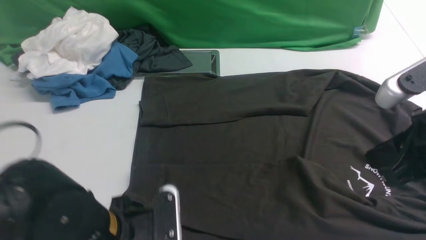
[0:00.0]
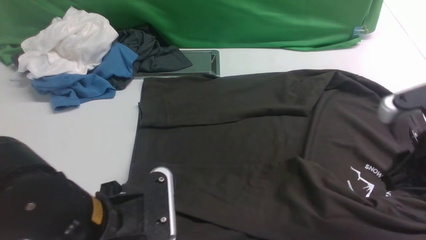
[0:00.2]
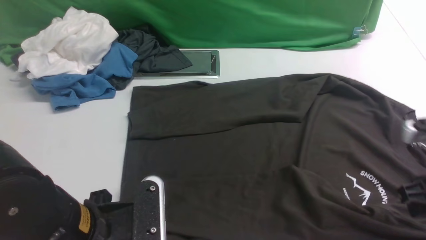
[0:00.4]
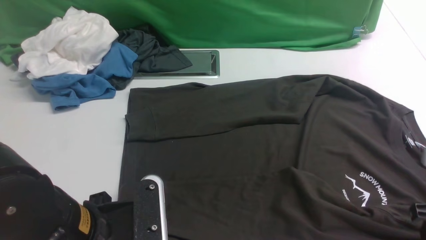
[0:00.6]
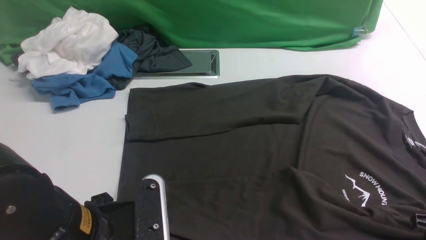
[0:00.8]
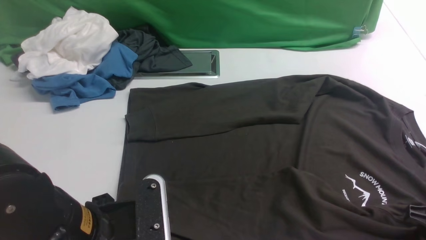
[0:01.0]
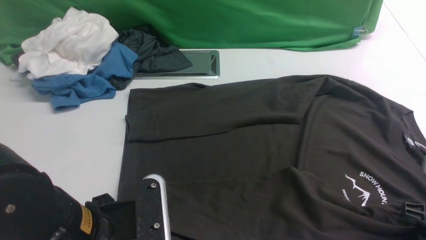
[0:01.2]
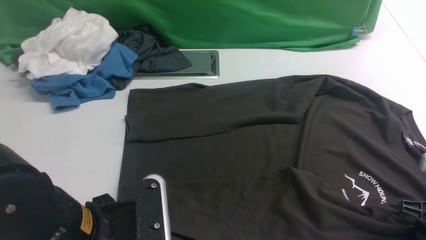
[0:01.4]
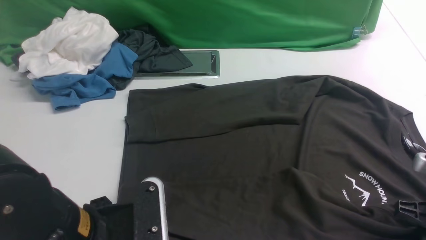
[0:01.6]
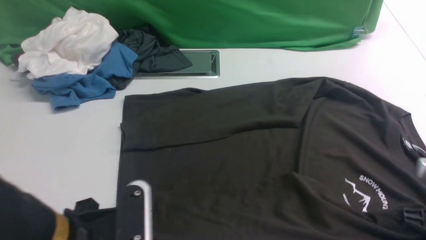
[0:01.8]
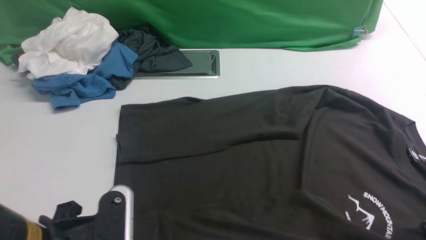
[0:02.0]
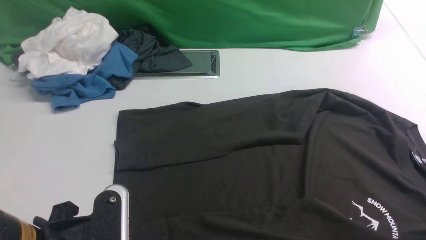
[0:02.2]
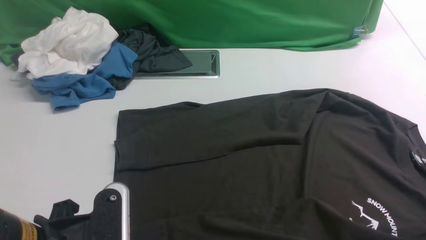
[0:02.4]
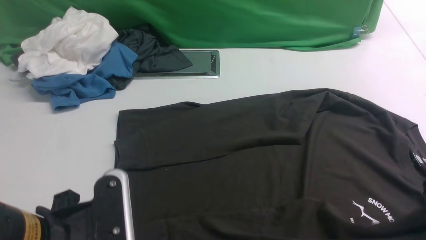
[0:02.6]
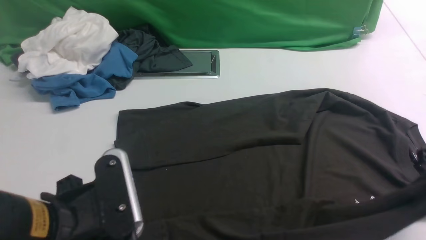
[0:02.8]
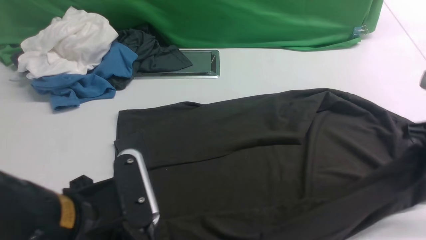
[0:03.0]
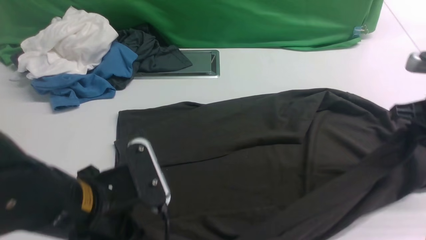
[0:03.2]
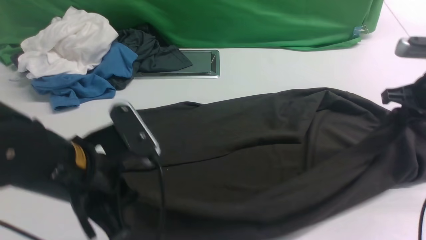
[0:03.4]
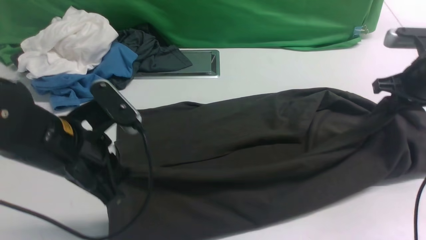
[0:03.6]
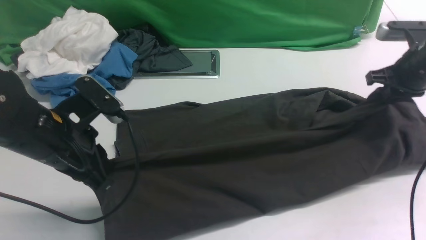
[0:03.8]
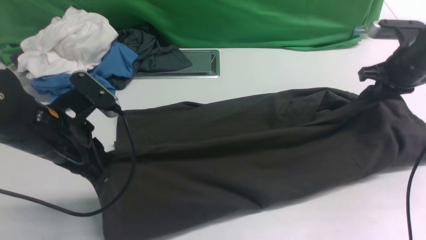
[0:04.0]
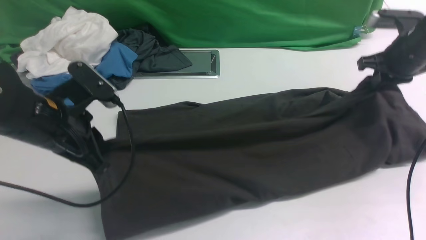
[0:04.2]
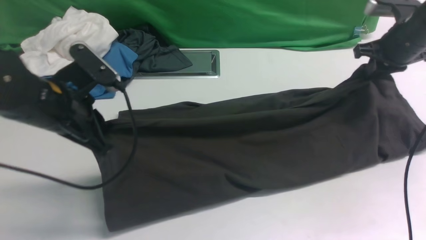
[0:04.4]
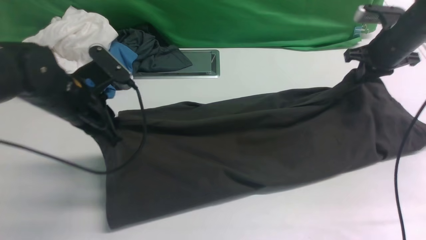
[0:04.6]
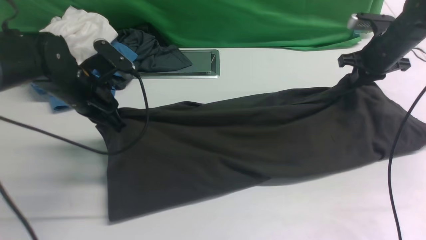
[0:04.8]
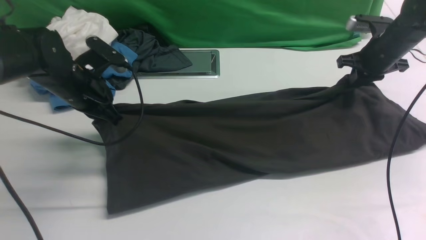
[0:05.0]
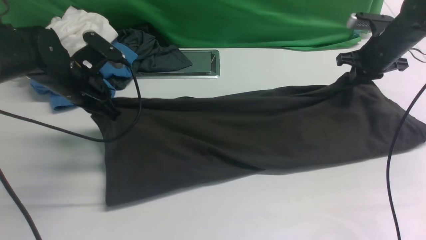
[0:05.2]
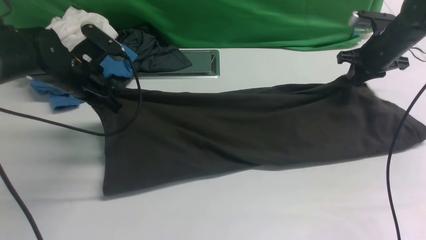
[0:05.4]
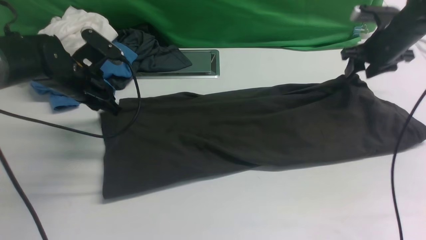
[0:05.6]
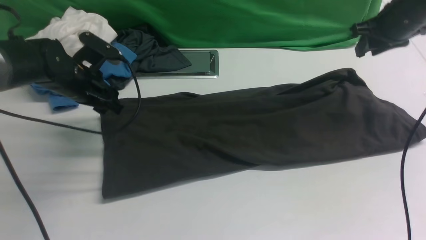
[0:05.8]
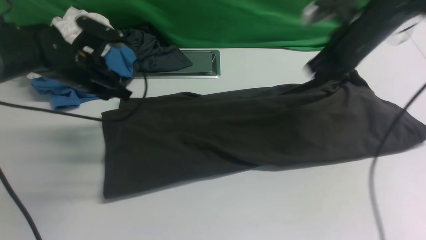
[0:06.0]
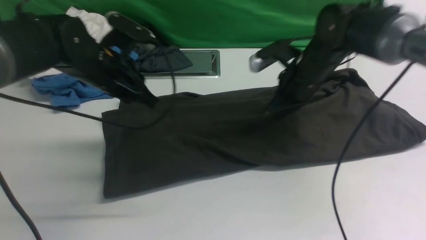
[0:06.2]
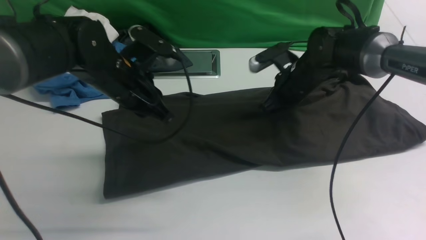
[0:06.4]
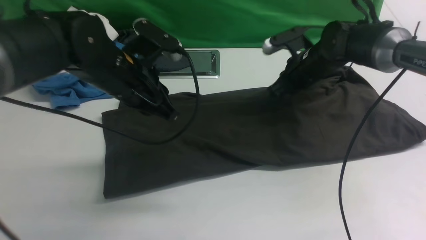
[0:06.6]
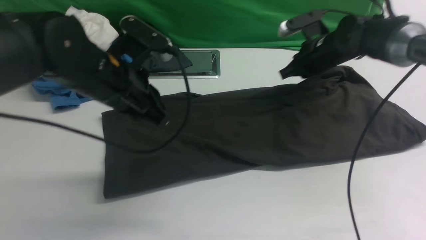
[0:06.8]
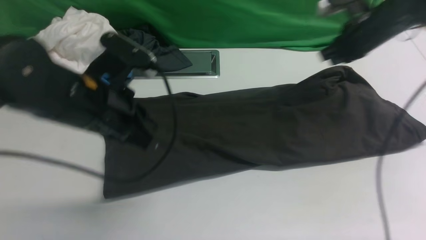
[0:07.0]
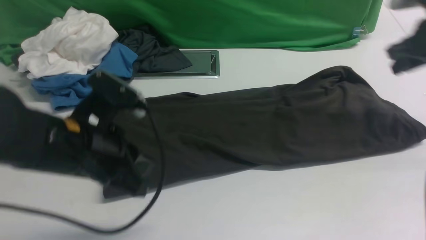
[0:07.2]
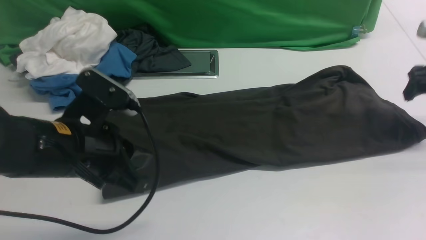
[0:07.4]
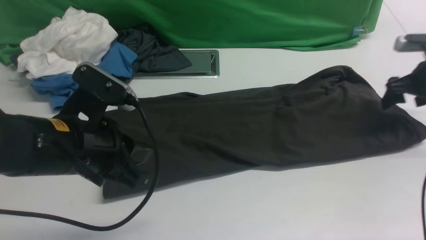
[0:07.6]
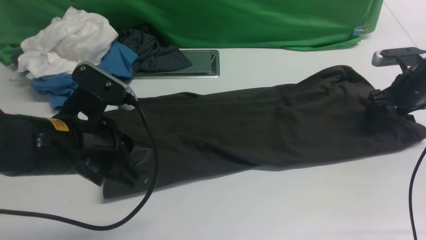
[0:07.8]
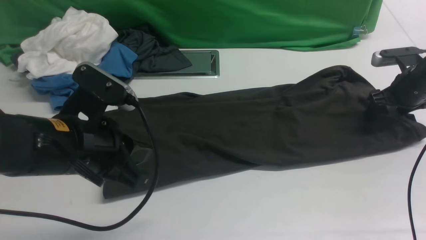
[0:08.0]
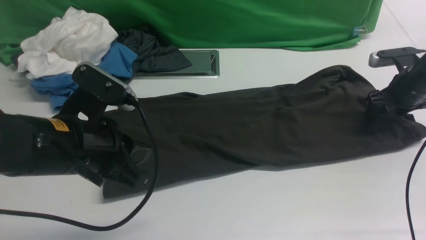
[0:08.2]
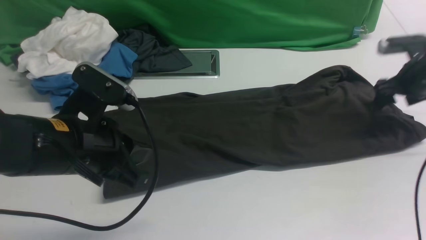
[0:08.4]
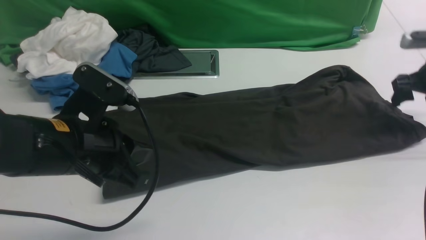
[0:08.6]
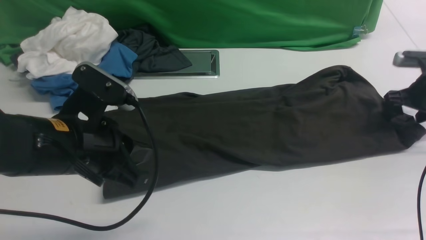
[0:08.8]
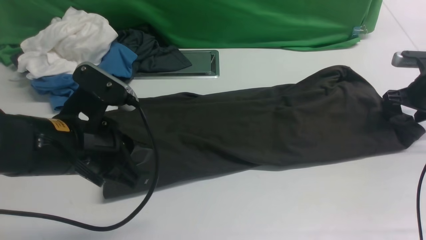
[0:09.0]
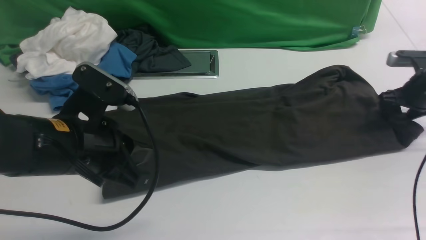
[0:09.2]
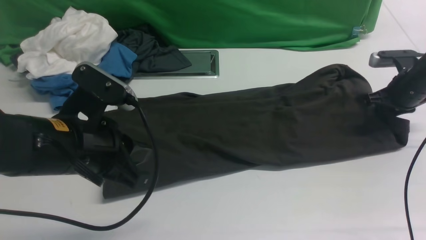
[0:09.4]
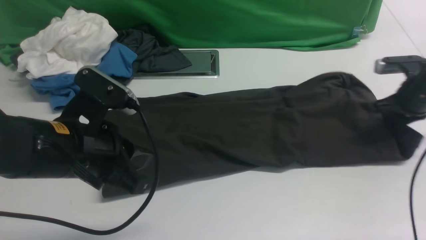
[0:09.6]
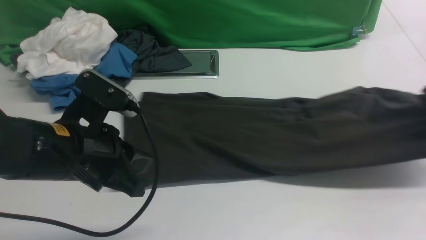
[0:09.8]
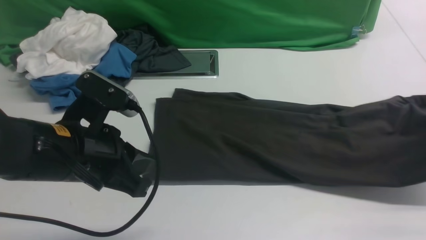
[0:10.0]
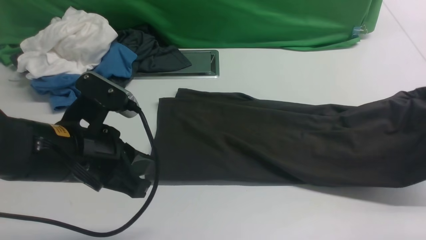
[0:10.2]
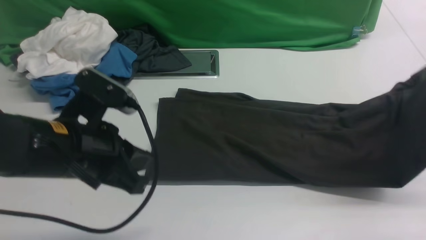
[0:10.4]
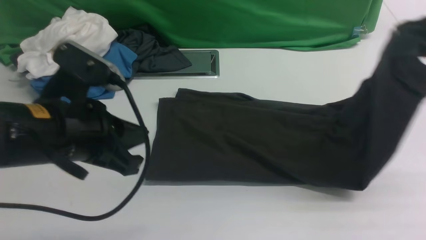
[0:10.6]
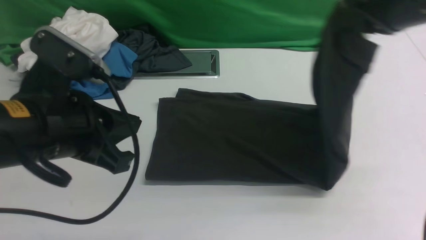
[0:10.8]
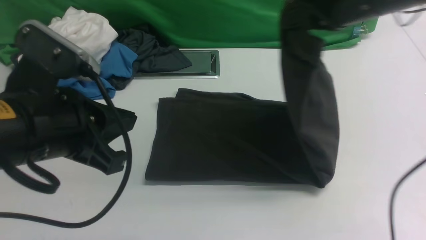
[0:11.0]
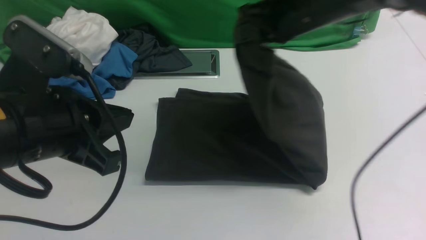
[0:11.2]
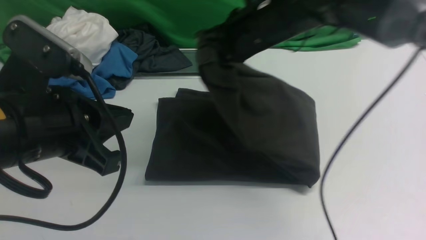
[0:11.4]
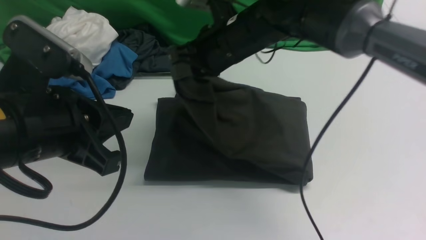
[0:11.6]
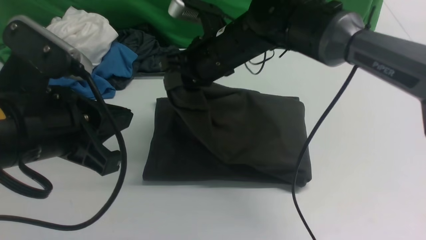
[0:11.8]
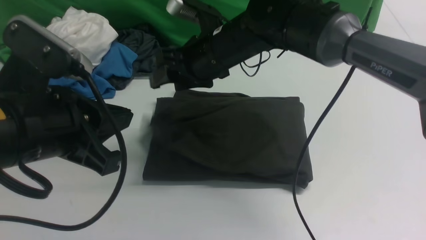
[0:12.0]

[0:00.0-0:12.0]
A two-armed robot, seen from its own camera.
Step, 0:00.0 to 0:02.4: use both arms simultaneously to clamp the lower edge of the clothing fabric.
Step, 0:02.6 to 0:07.2: use both arms to drag the lower edge of the fabric forward and fold it over the upper edge.
Step, 0:07.4 to 0:09.6: use the right arm to clamp the right edge of the fabric.
0:00.0 to 0:01.6: The left gripper is displaced upward by roughly 5 cm. Meanwhile the right gripper moves downward and to the right, approximately 15 cm, and opens, then closes again.
0:01.6 to 0:03.0: The right gripper heads upward and forward, covering approximately 10 cm.
0:03.0 to 0:04.4: The left gripper shifts roughly 15 cm forward and to the left. Meanwhile the right gripper is displaced forward by some 20 cm.
0:04.4 to 0:06.0: The left gripper shifts some 10 cm forward, and opens up. Meanwhile the right gripper is displaced to the left by about 10 cm, and opens and closes again.
0:06.0 to 0:07.6: The left gripper travels backward by some 20 cm, and closes. Meanwhile the right gripper is displaced to the right by approximately 20 cm, and opens.
0:07.6 to 0:09.0: The grippers make only small movements.
0:09.0 to 0:10.4: The right gripper goes roughly 20 cm upward and backward, and closes its fingers.
0:10.4 to 0:12.0: The right gripper goes about 35 cm to the left, and opens up, while the left gripper moves roughly 5 cm.

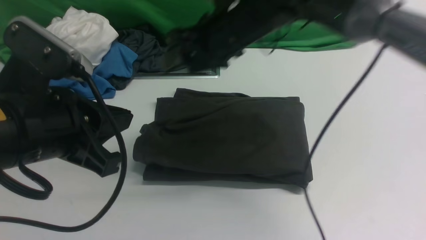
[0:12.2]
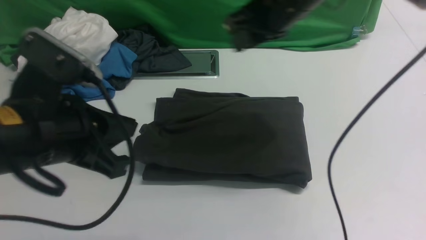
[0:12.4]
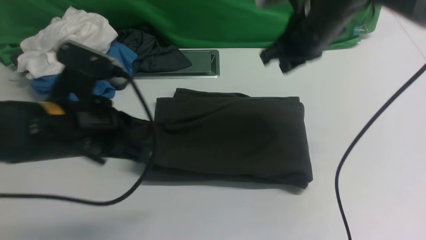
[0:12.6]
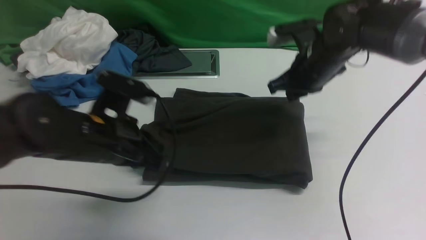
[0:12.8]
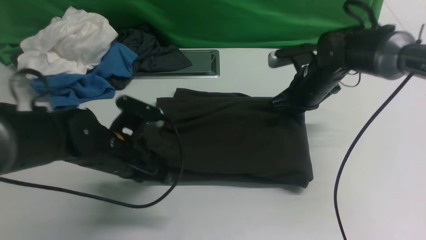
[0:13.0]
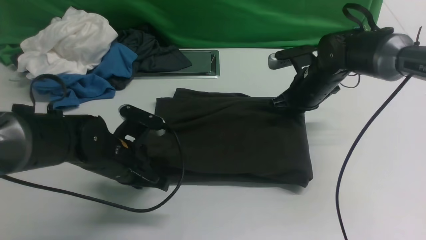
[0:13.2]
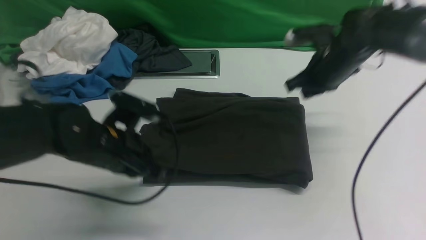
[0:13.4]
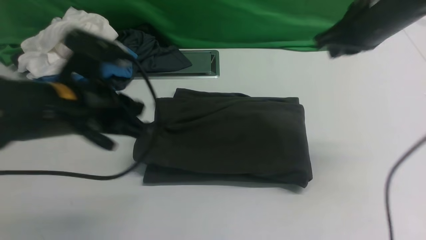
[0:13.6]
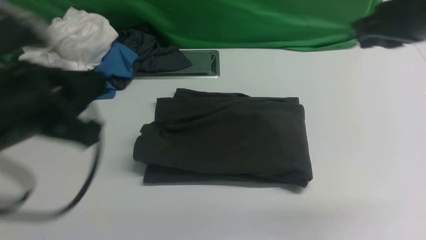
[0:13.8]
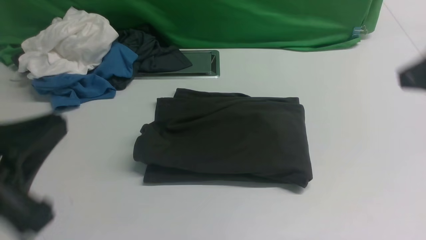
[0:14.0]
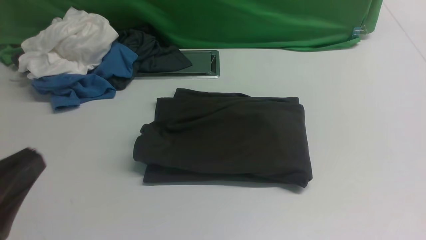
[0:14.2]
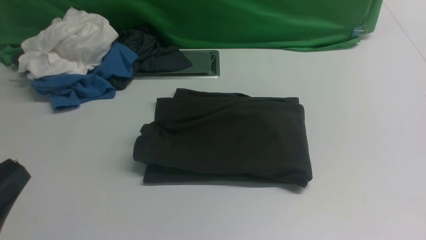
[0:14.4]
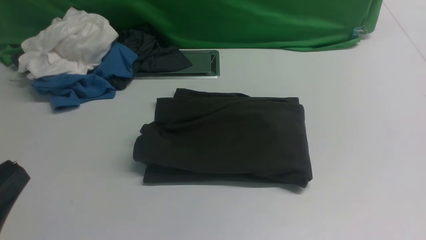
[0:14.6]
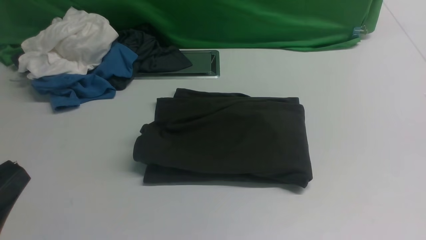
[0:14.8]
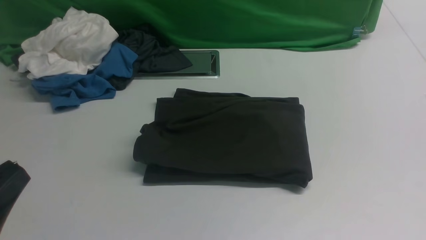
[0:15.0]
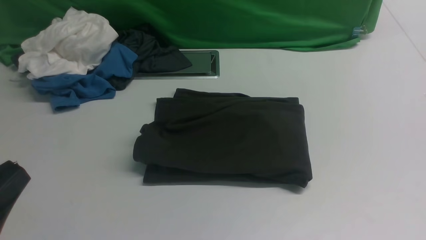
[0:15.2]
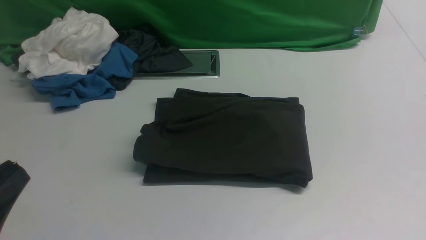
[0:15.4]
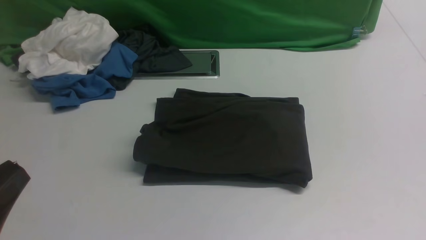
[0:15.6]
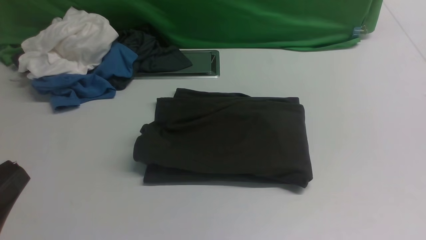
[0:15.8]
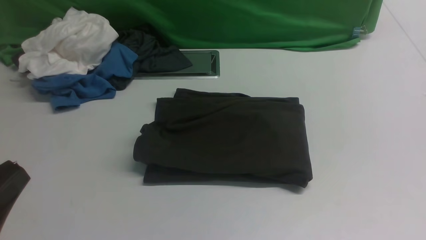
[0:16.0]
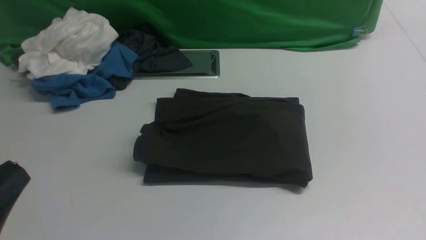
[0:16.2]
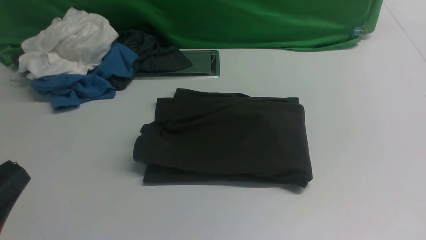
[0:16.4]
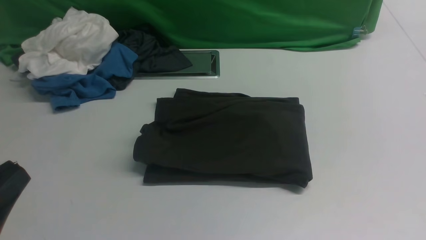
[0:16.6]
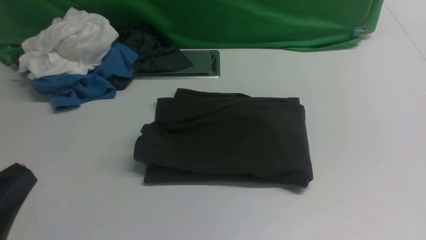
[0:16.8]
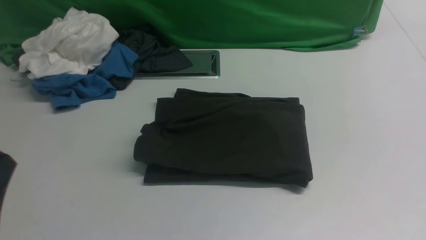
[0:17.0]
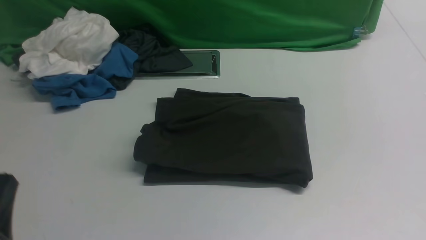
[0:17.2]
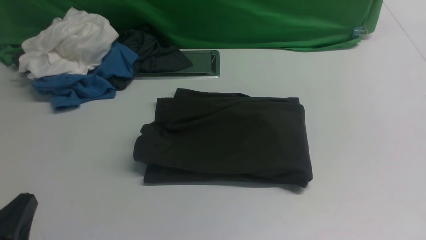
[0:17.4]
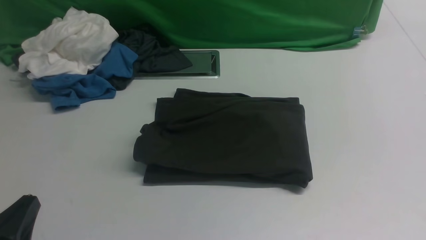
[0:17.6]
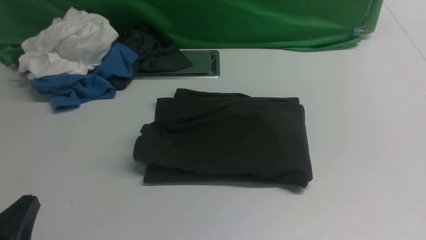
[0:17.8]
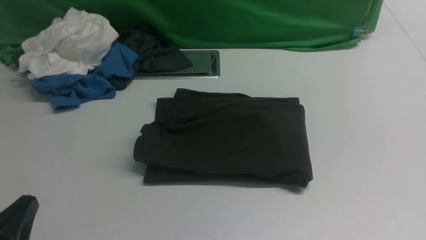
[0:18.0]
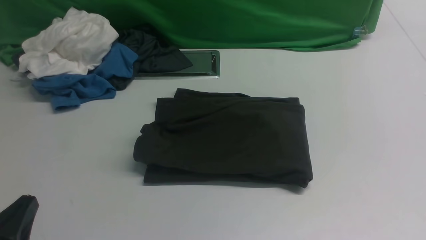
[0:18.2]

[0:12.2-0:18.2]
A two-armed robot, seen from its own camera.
0:12.2 to 0:13.8: The left gripper reaches approximately 15 cm downward, then returns. The right gripper goes roughly 20 cm to the right and backward, travels downward and back again, approximately 15 cm each way, and closes up.
0:13.8 to 0:15.2: The left gripper is displaced backward by some 10 cm. Meanwhile the right gripper goes roughly 25 cm backward and downward.
0:16.6 to 0:18.2: The left gripper travels downward by roughly 10 cm.
